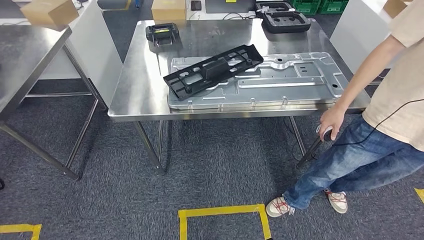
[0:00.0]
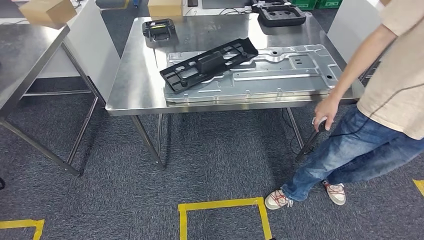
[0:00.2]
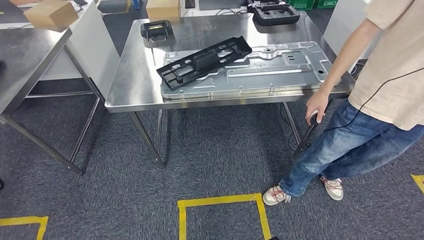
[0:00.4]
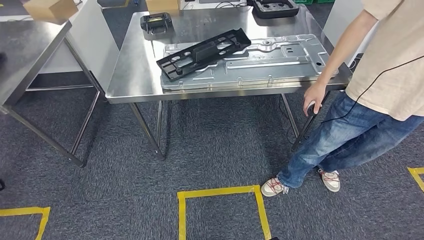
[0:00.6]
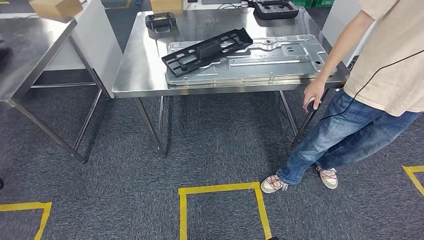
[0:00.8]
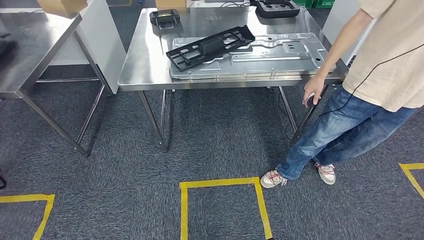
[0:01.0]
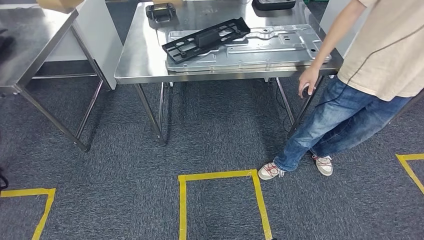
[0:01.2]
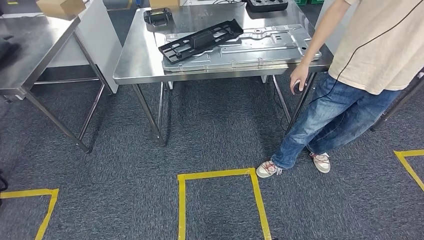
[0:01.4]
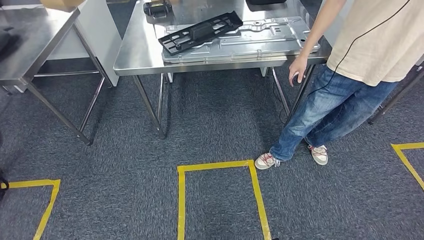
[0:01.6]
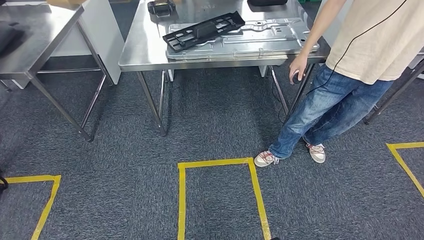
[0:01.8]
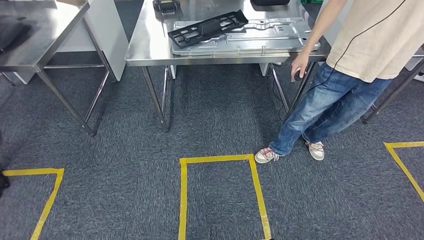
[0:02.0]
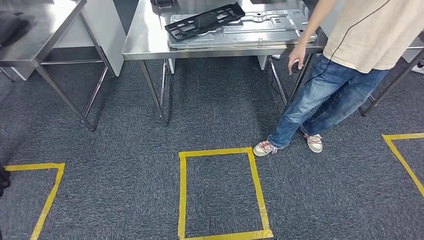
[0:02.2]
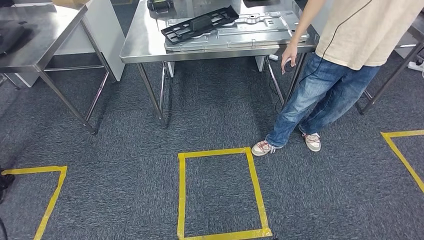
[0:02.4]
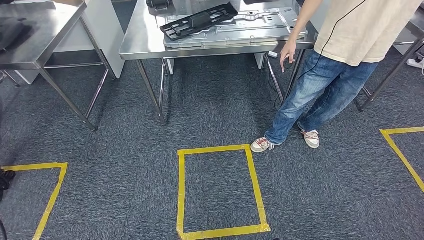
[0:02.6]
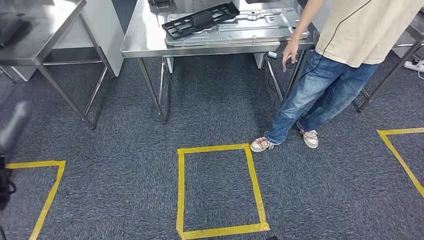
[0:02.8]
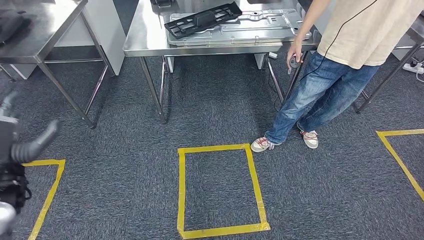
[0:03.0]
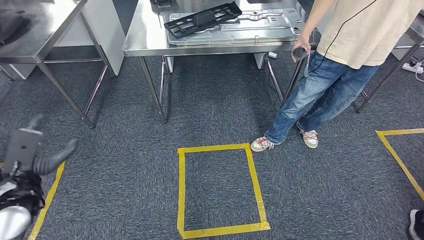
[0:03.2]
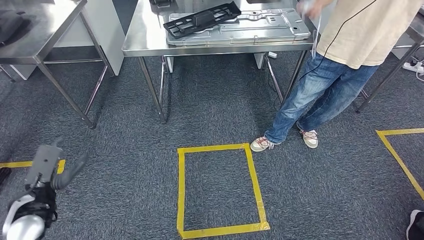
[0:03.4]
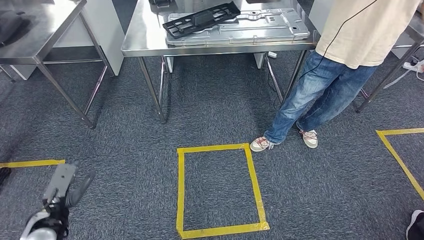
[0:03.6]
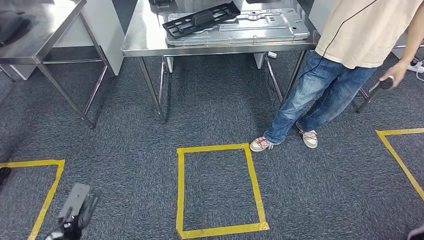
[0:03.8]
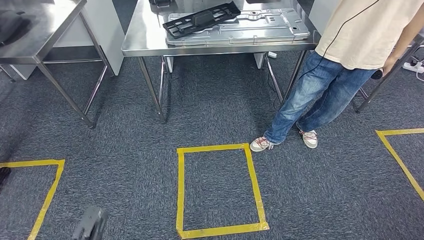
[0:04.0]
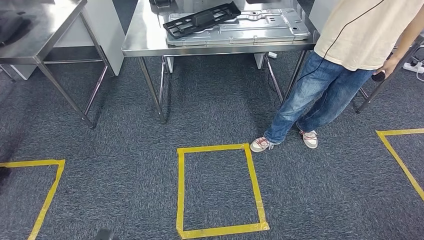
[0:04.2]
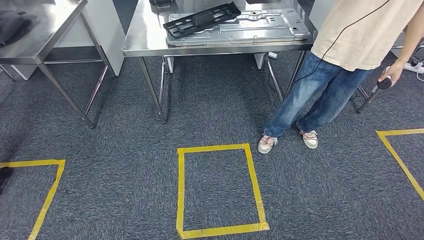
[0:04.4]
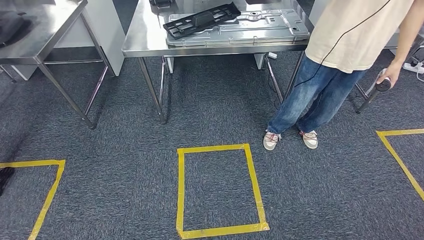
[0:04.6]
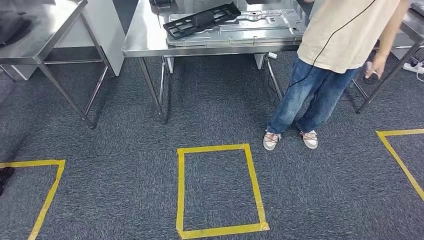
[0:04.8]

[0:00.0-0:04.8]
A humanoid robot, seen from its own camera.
Step, 0:00.0 to 0:04.6: Move to the initial position of the shelf.
0:03.2 to 0:04.8: The left hand heads downward and backward, covering approximately 40 cm. The right hand goes roughly 10 cm backward.
